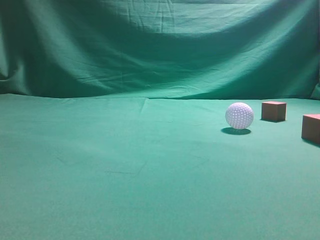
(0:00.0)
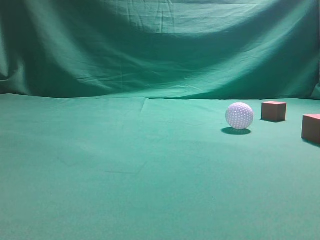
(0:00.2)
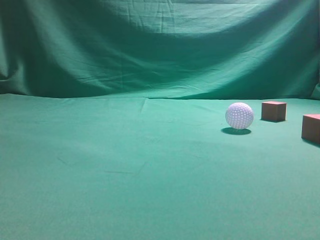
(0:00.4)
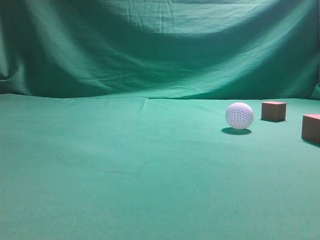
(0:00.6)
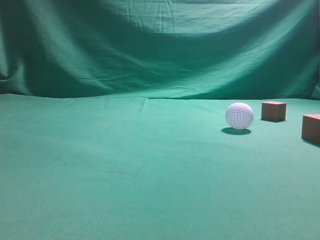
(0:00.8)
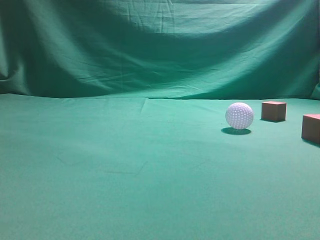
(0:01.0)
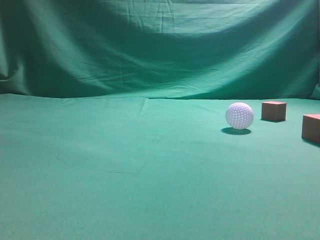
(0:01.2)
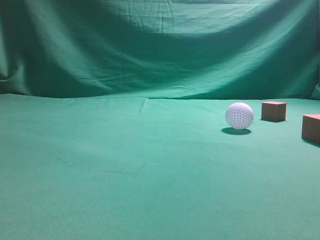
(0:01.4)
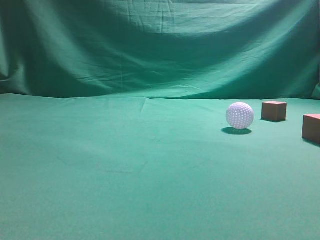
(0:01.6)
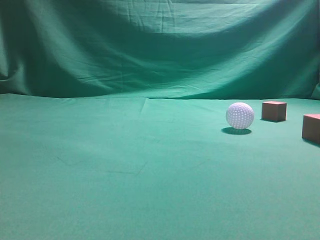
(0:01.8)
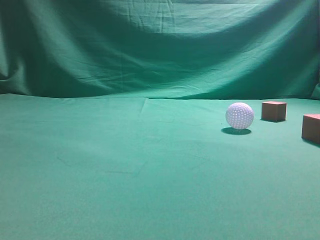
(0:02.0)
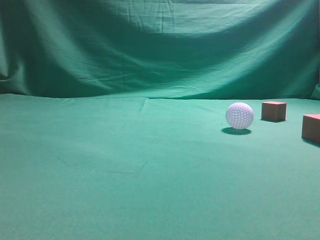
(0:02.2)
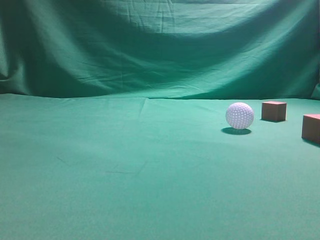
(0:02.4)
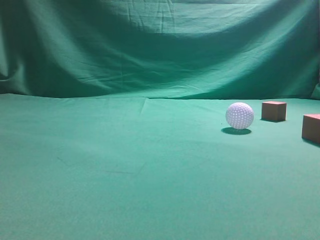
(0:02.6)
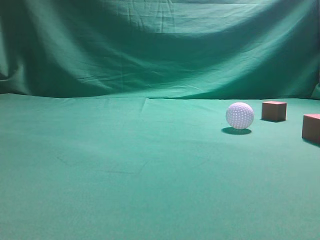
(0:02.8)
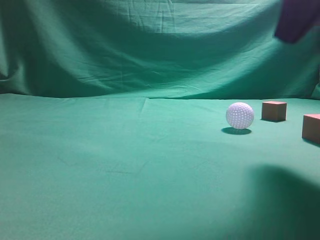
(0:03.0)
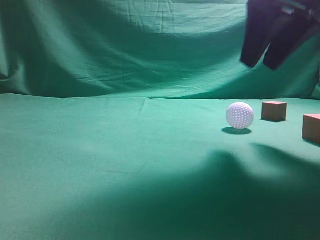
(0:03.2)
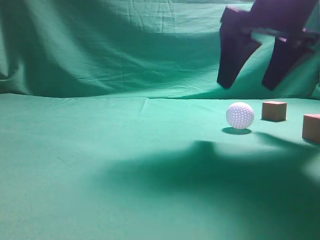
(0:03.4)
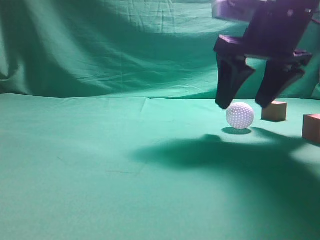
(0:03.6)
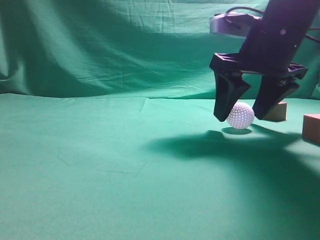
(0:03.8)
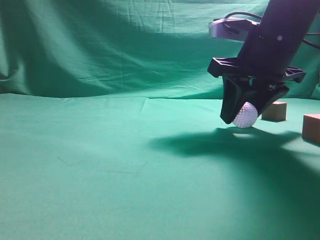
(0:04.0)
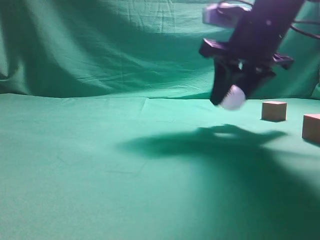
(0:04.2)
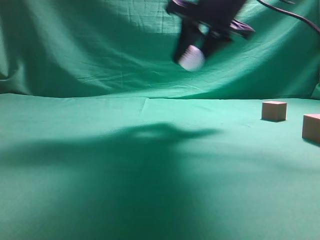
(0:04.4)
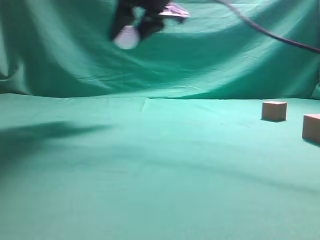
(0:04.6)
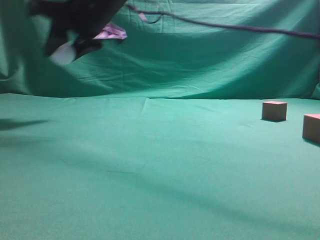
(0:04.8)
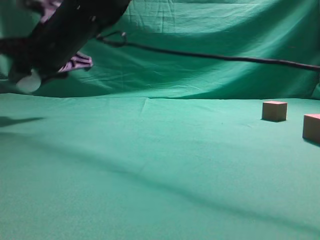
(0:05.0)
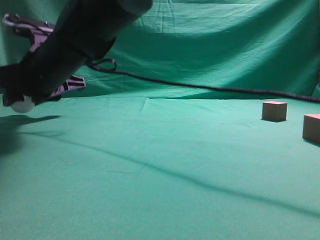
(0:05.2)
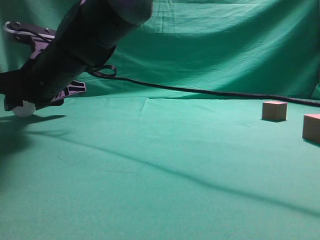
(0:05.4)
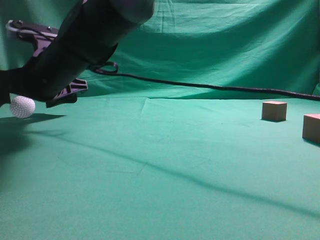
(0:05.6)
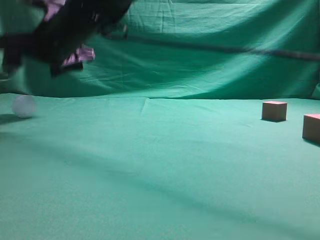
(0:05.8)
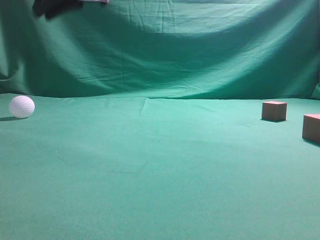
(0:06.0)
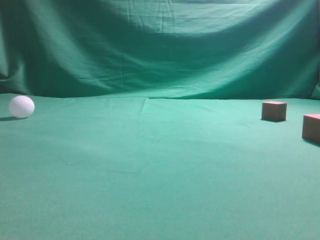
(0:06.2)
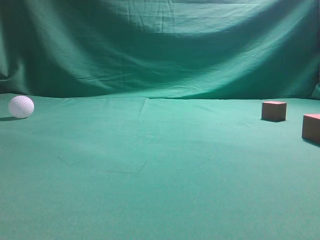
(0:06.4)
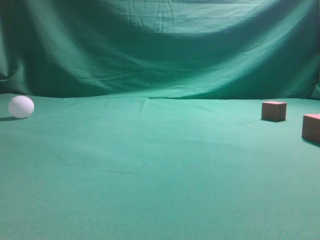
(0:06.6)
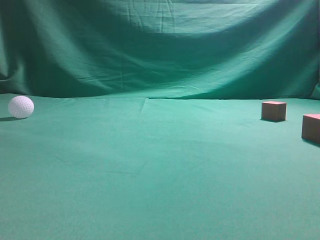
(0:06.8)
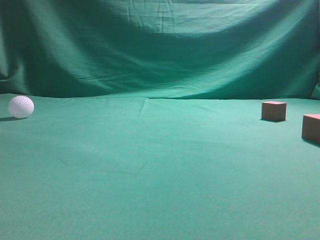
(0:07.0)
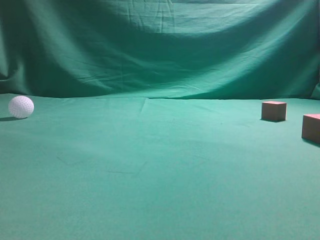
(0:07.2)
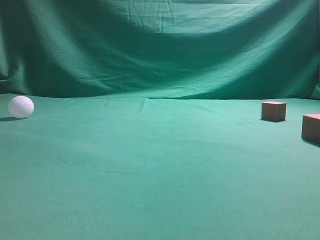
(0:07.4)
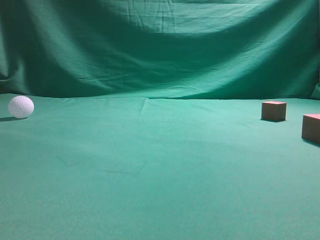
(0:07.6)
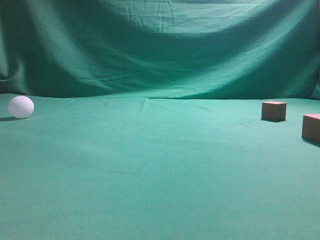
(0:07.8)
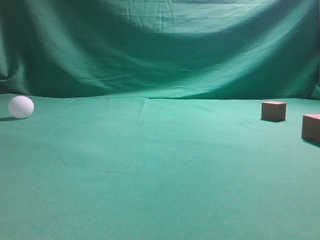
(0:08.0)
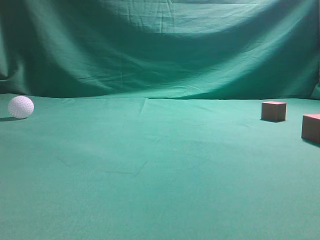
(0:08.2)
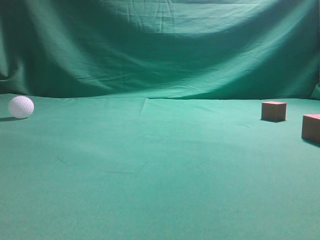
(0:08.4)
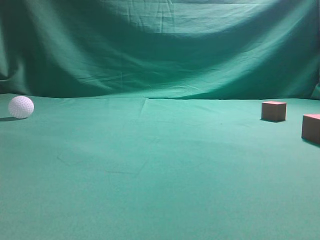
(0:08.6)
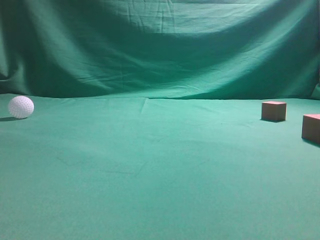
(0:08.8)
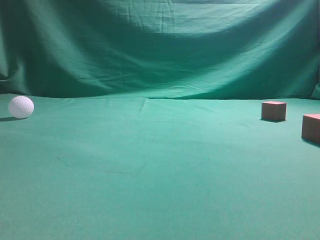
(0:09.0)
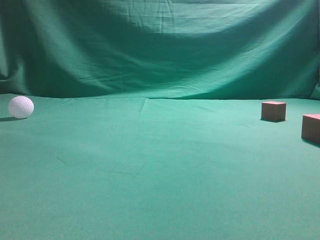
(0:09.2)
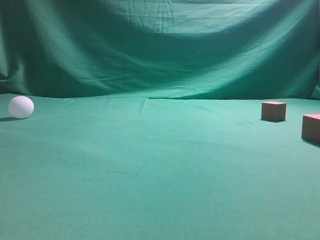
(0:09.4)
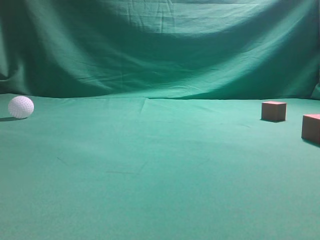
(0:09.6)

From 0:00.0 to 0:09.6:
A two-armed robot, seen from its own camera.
Step, from 0:00.0 to 0:04.0: Grasp the spherical object on the right side.
From 0:01.6 to 0:03.2: The right gripper travels forward and to the left by some 25 cm, and opens.
From 0:03.2 to 0:04.8: The right gripper moves to the left, roughly 30 cm.
From 0:04.8 to 0:06.4: The right gripper shifts roughly 25 cm upward and to the right, and closes up.
